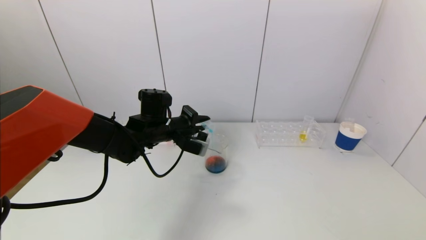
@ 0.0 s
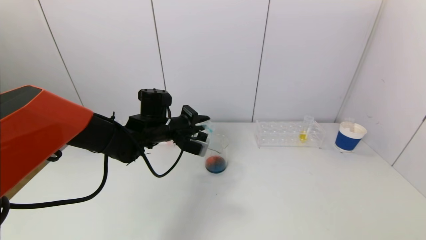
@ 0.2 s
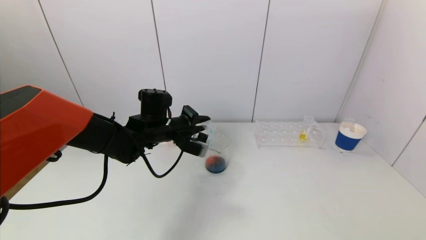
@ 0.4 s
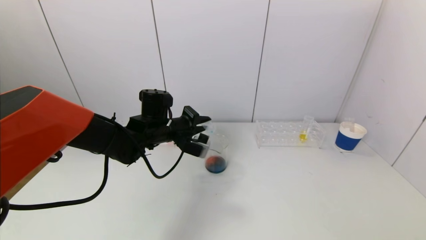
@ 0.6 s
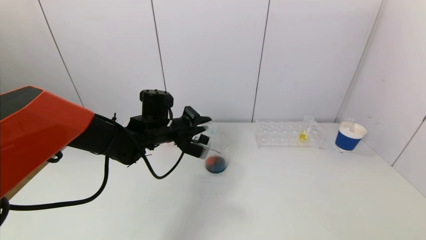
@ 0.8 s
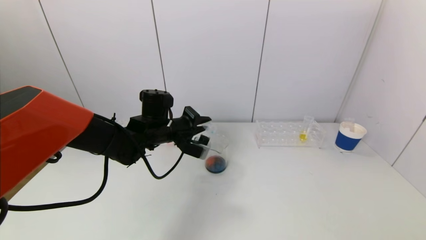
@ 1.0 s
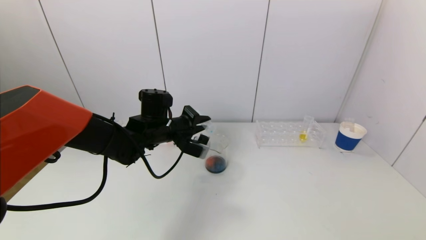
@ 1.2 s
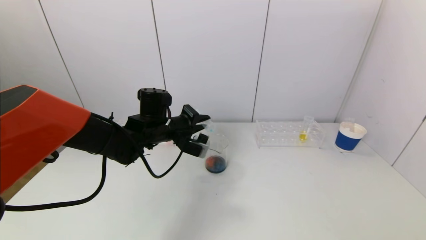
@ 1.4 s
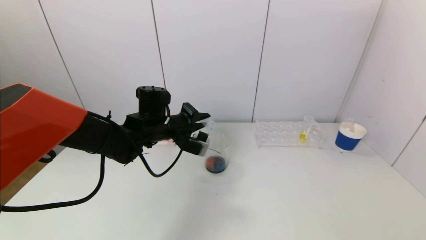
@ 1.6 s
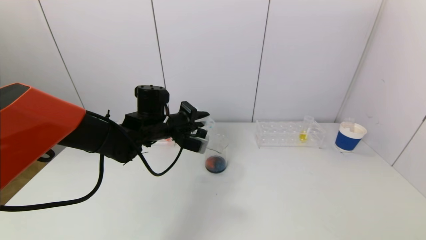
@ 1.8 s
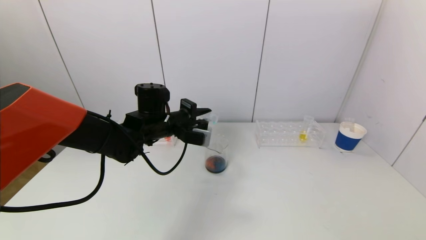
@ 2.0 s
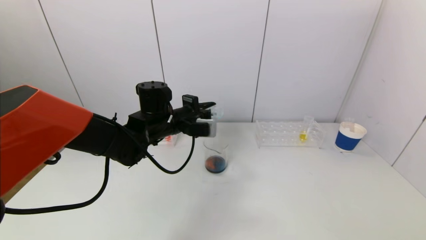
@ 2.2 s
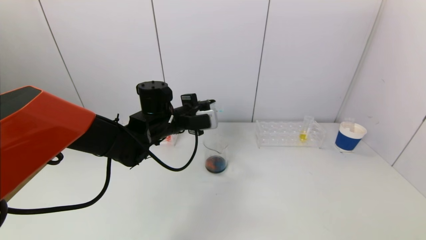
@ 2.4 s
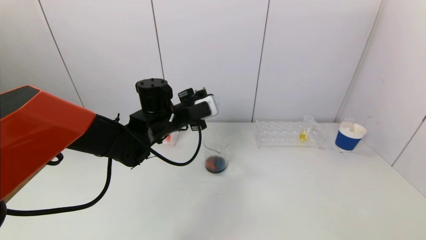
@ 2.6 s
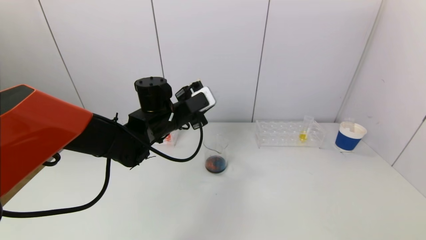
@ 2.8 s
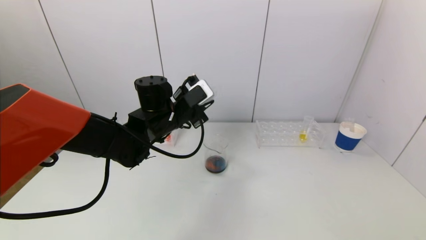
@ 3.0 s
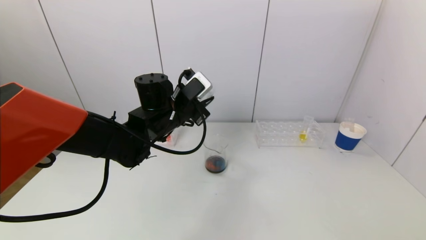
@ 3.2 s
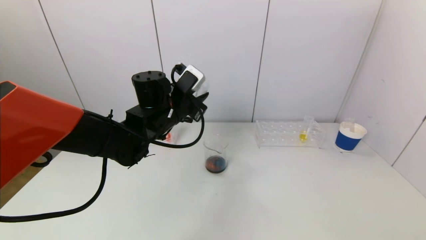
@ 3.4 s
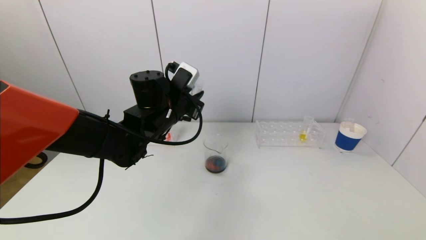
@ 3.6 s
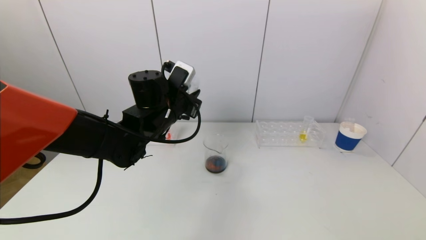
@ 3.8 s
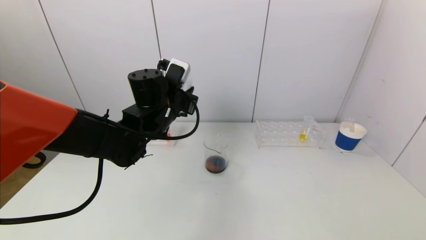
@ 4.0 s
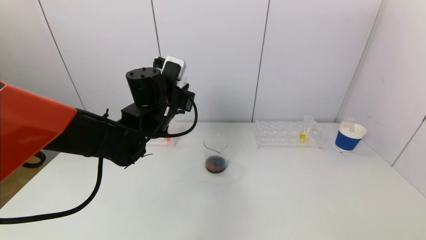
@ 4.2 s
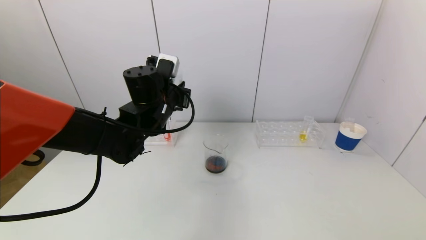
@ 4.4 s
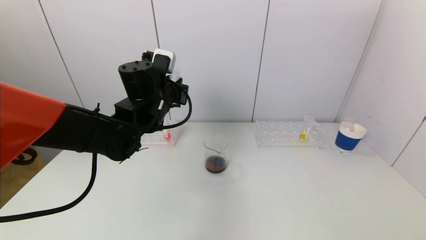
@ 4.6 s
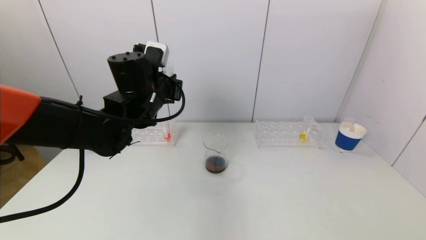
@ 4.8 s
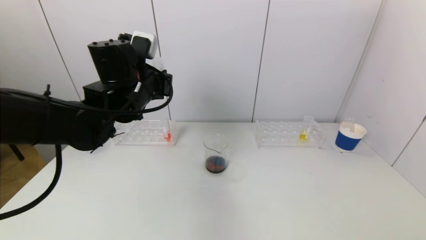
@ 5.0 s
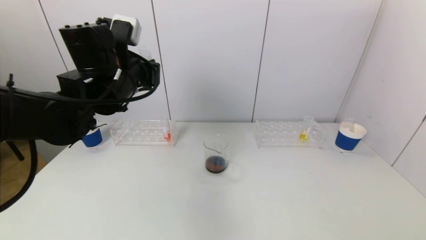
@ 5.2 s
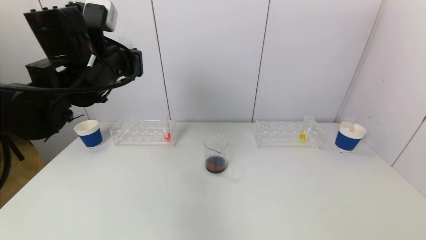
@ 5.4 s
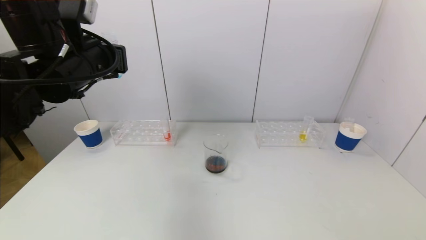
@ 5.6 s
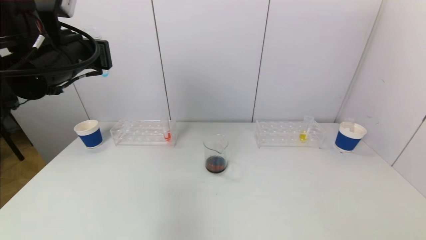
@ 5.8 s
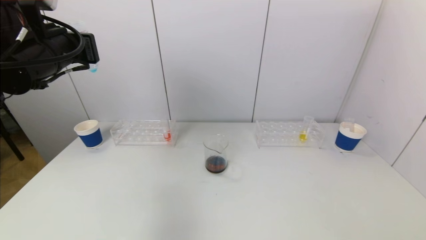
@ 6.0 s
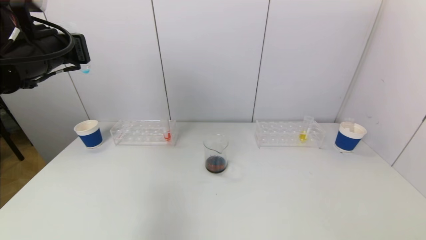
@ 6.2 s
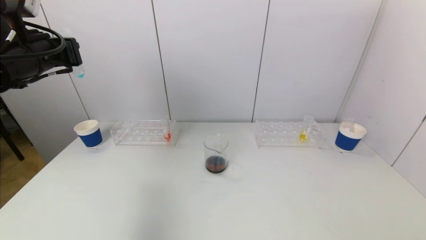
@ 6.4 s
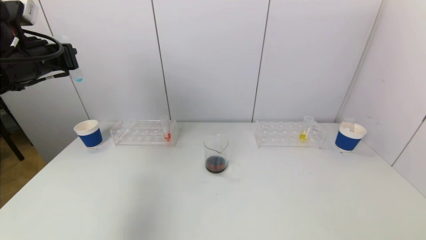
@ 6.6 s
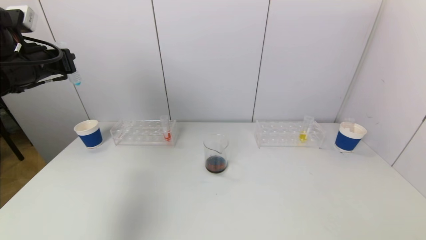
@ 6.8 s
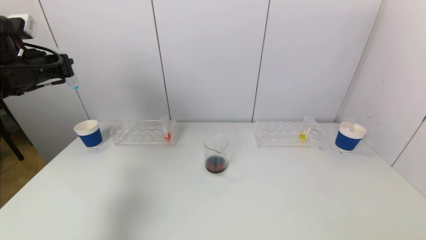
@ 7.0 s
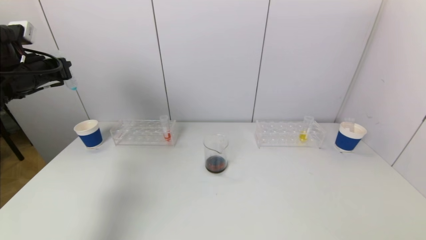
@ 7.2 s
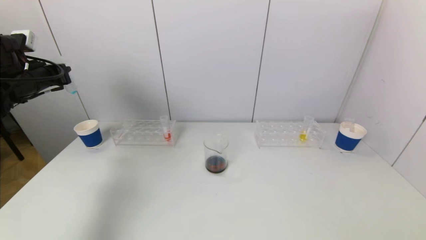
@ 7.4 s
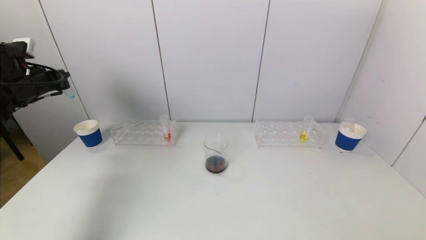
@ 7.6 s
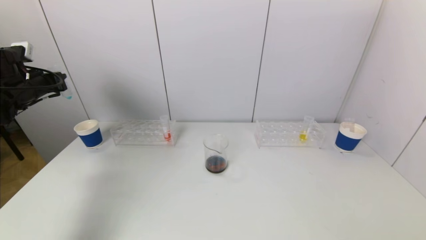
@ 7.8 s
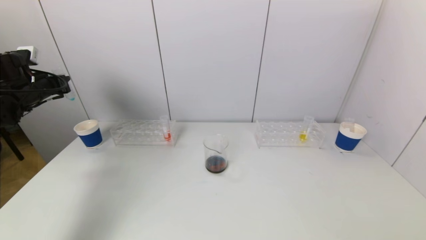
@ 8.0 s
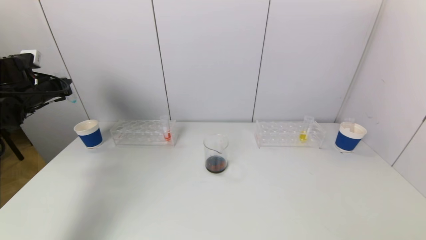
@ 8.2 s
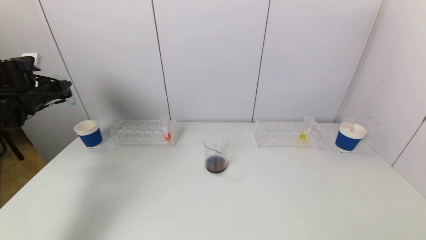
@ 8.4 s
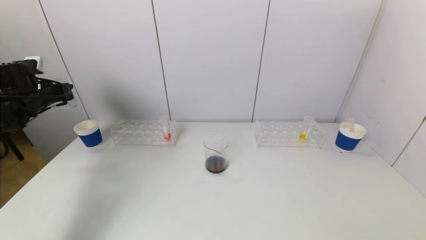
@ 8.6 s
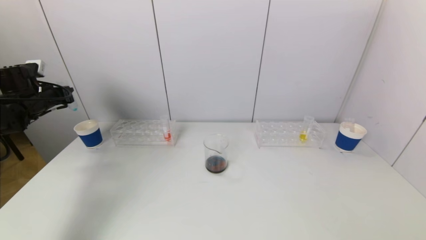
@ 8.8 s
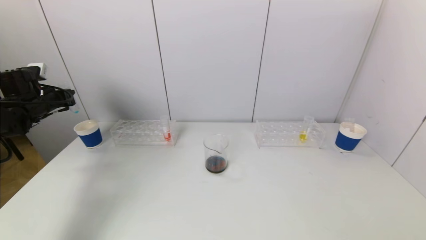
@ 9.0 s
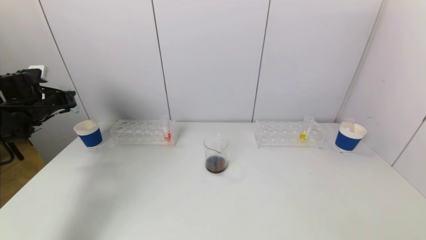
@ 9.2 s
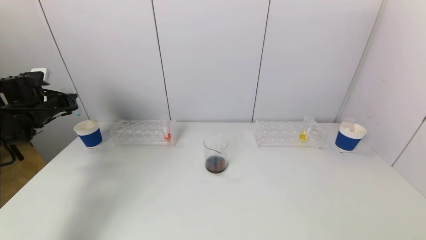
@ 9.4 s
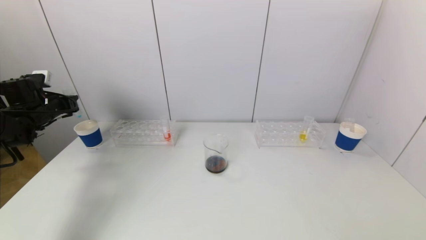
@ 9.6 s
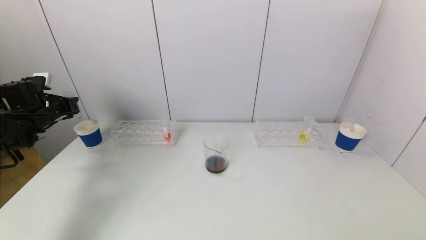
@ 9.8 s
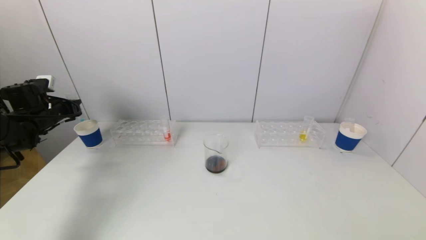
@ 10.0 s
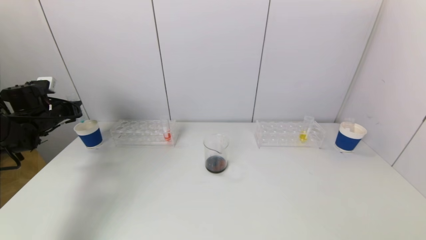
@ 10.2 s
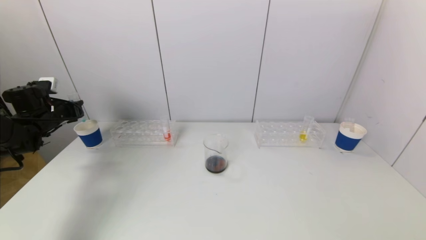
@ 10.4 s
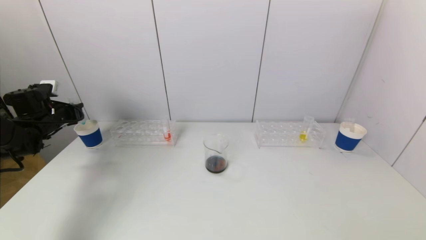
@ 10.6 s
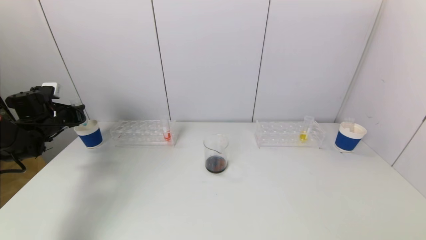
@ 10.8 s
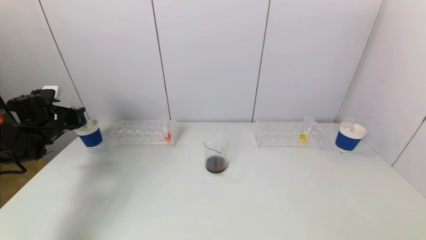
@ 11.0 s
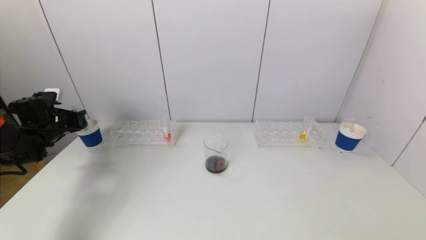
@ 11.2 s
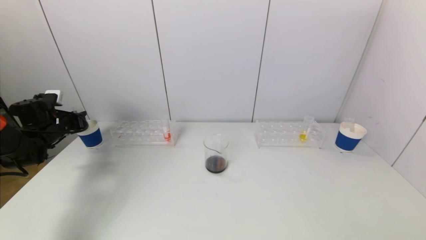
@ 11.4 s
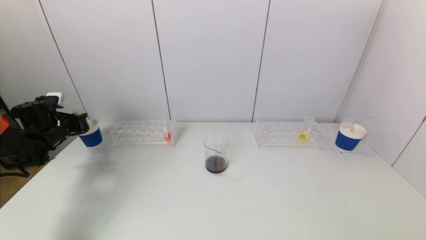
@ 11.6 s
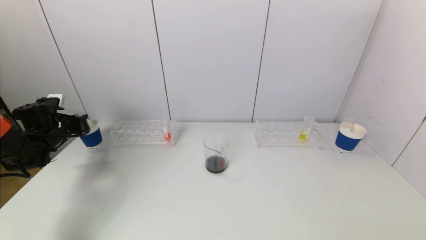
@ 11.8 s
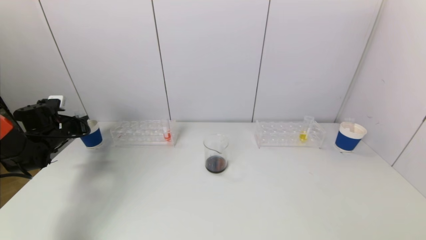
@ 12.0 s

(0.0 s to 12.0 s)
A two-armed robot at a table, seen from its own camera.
Task of the whole recording: pick up a test tube with pigment on left test tube rack and a test tube with pigment on right test tube rack by grippers and pour them into the beaker.
0.0 s - 1.6 s: Both grippers stay put.
4.4 s - 6.0 s: The left gripper goes approximately 20 cm to the left, upward and backward.
6.0 s - 7.6 s: The left gripper shifts roughly 20 cm to the left, forward and downward.
7.6 s - 9.0 s: The left gripper shifts some 5 cm downward.
9.0 s - 10.4 s: The grippers make only small movements.
10.4 s - 12.0 s: The left gripper moves downward, roughly 5 cm.

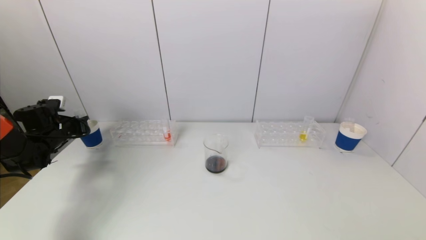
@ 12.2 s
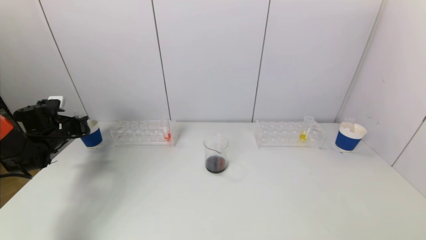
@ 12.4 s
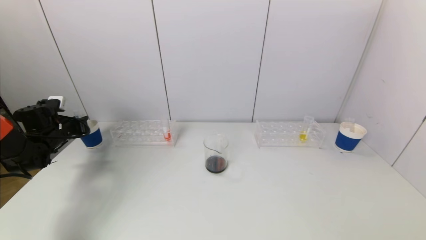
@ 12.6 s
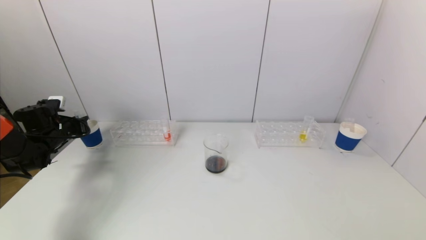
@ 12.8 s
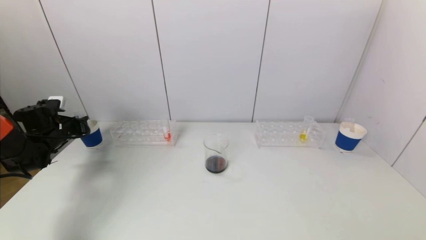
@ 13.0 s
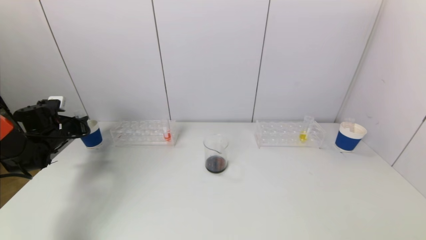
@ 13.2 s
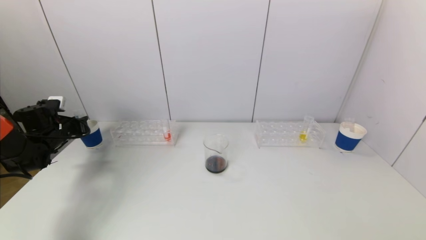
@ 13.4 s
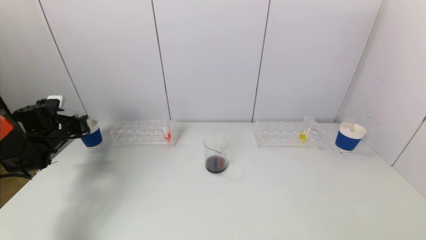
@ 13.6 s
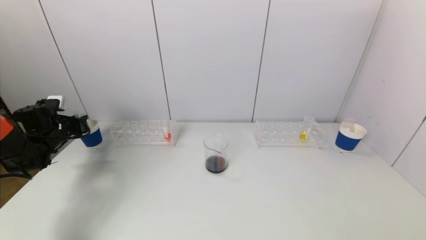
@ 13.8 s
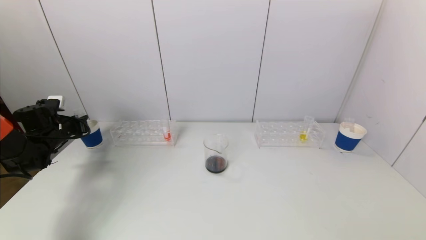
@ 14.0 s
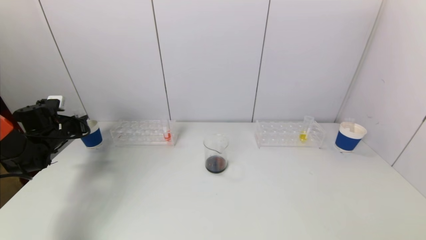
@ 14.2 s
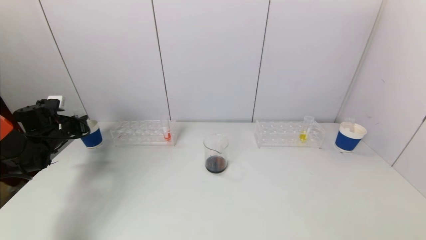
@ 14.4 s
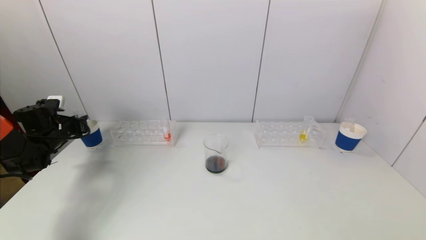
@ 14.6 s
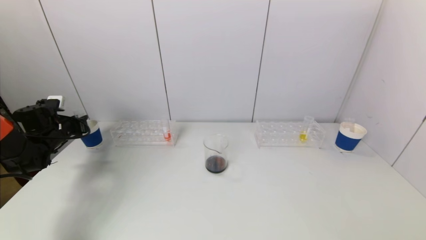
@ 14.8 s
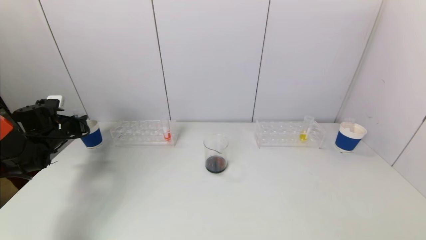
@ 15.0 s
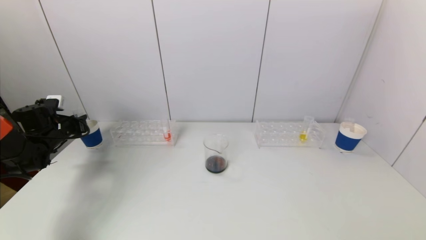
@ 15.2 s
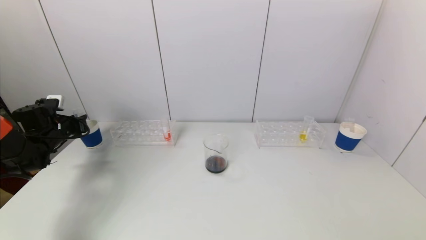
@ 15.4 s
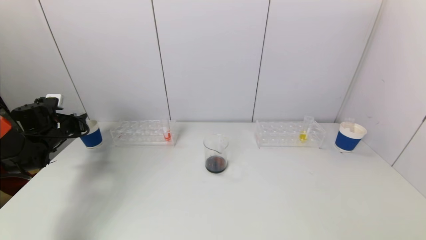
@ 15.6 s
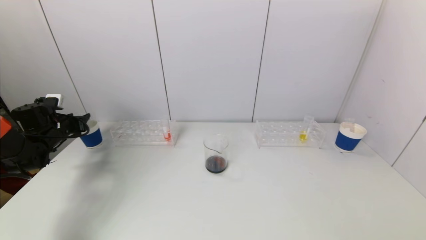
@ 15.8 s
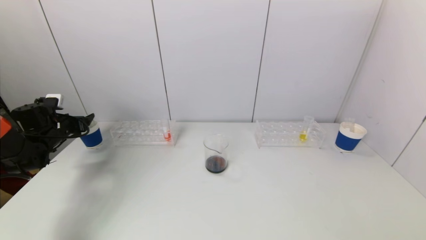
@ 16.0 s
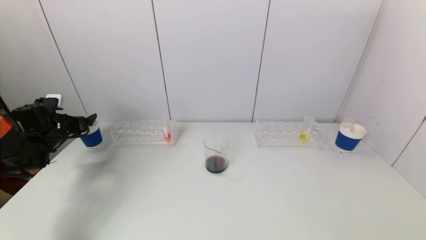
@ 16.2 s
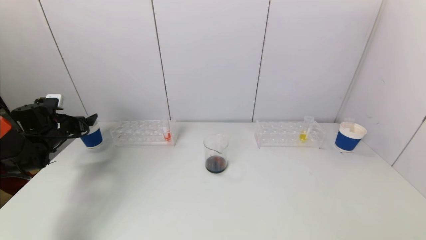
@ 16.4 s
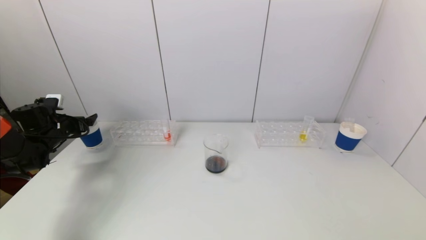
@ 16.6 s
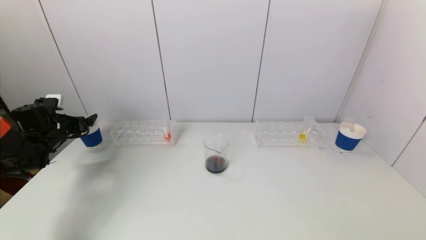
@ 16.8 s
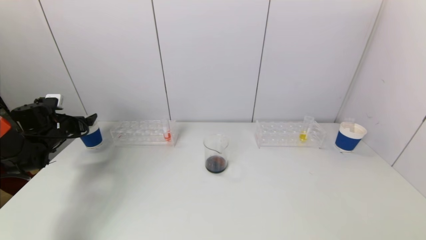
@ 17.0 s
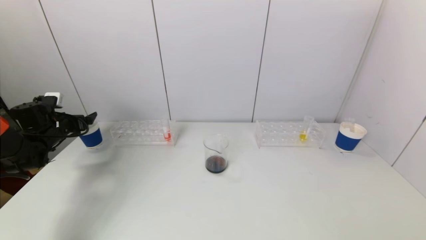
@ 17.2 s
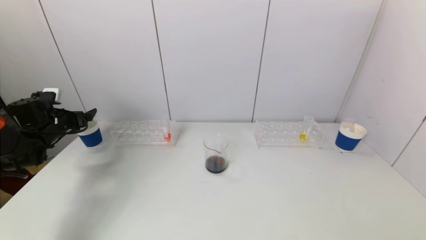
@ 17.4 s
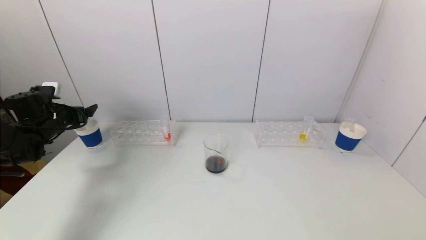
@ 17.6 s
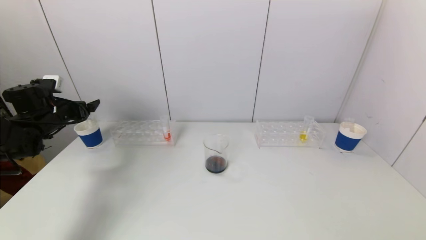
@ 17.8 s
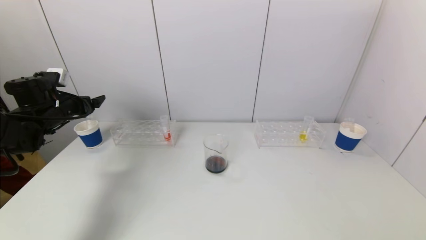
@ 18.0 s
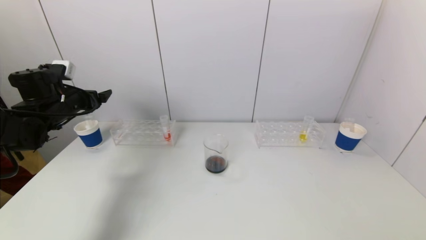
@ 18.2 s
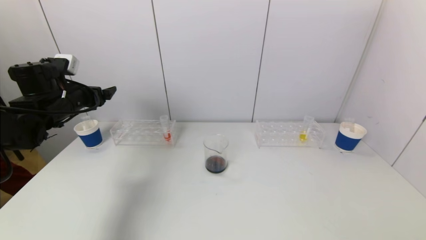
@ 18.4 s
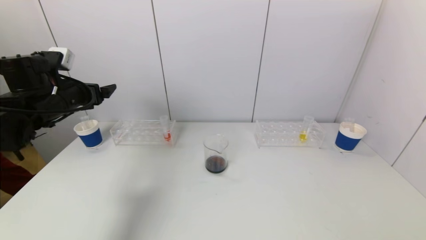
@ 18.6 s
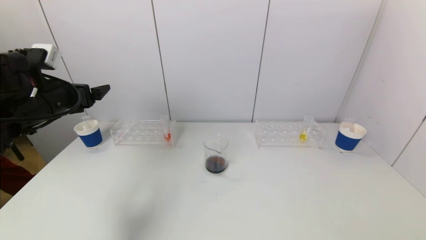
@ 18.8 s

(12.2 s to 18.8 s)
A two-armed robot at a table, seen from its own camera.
Task of the whole recording: pick up a test tube with pigment on left test tube rack and a test tube with pigment on right test tube rack by grippers and pour them into the beaker.
Step, 12.2 s - 17.6 s: Place the test tube into the paper cup with the left gripper.
12.2 s - 15.4 s: Both grippers stay put.
15.4 s - 17.2 s: The left gripper opens up.
17.2 s - 18.8 s: The left gripper shifts roughly 20 cm upward, to the right and backward.
